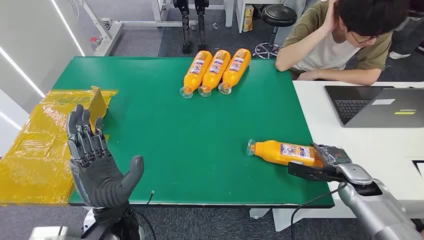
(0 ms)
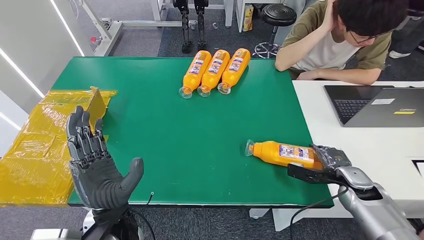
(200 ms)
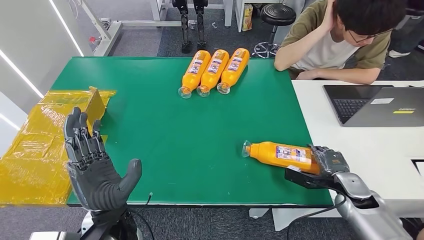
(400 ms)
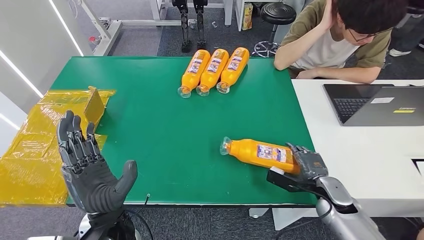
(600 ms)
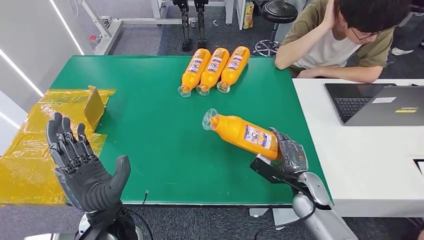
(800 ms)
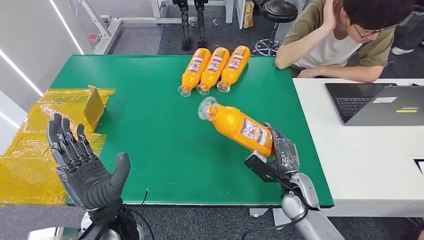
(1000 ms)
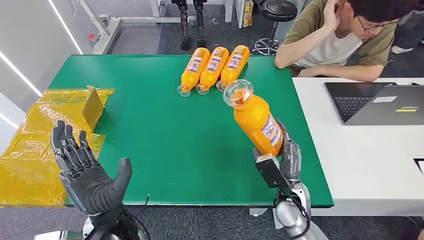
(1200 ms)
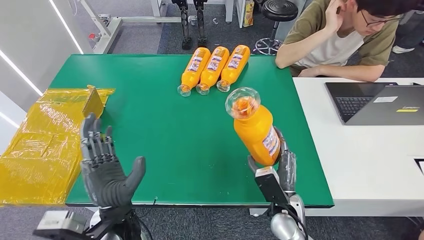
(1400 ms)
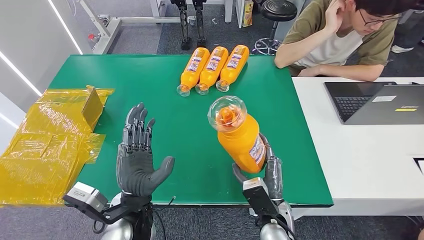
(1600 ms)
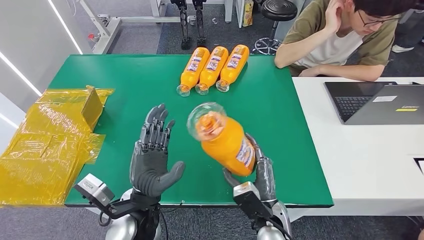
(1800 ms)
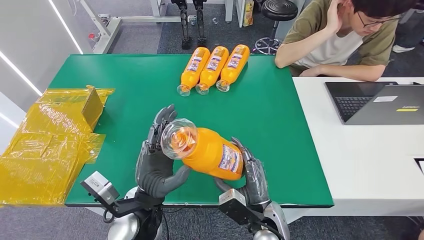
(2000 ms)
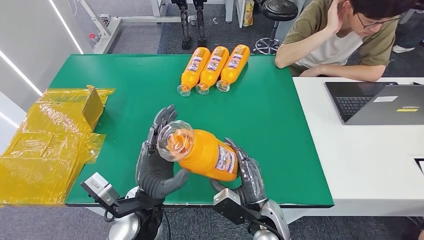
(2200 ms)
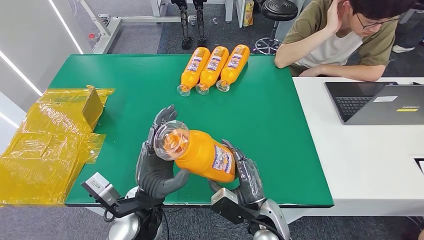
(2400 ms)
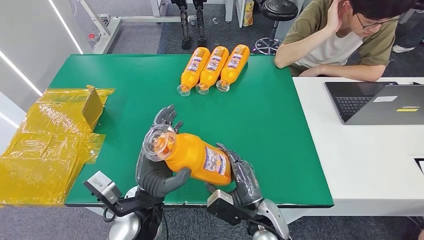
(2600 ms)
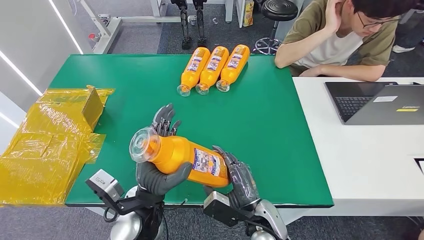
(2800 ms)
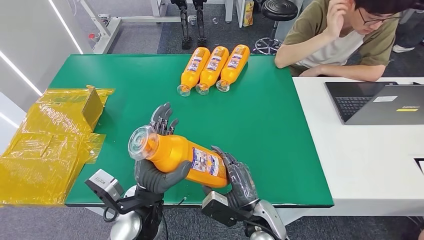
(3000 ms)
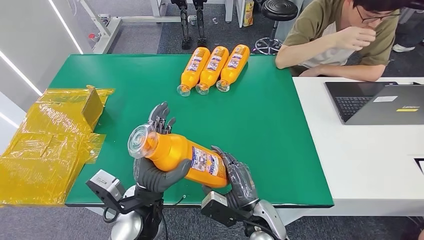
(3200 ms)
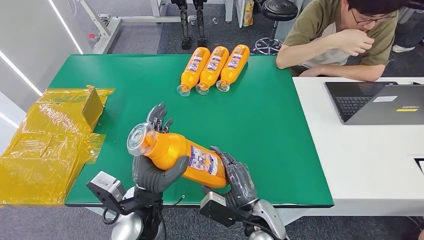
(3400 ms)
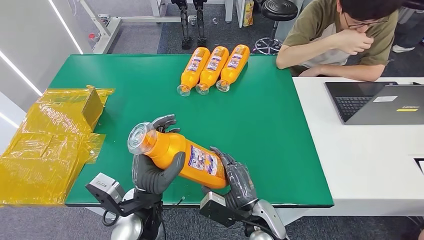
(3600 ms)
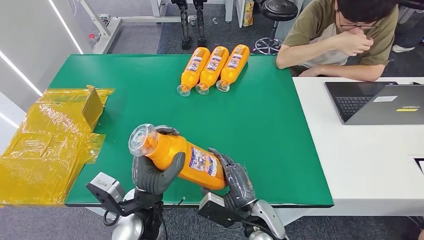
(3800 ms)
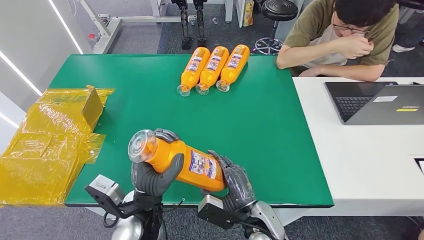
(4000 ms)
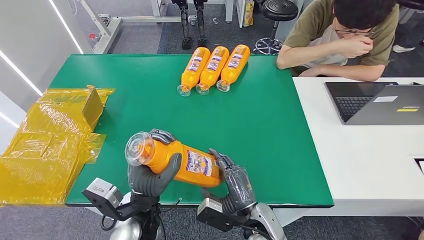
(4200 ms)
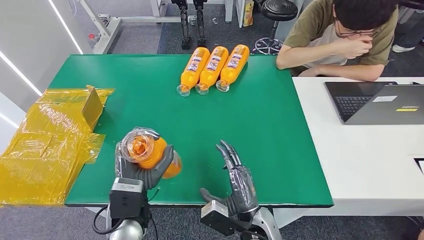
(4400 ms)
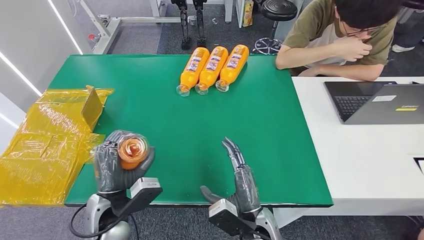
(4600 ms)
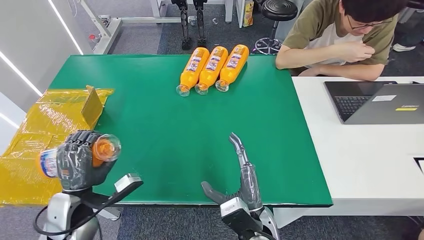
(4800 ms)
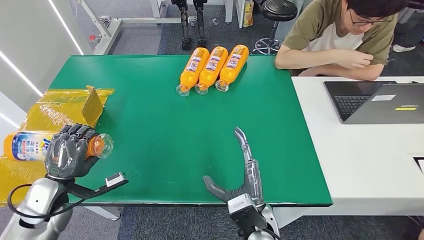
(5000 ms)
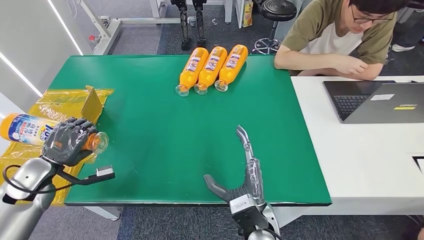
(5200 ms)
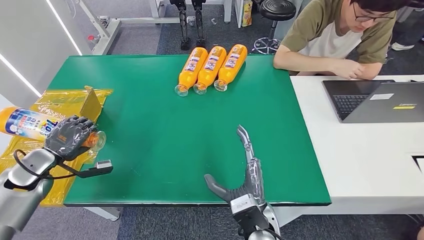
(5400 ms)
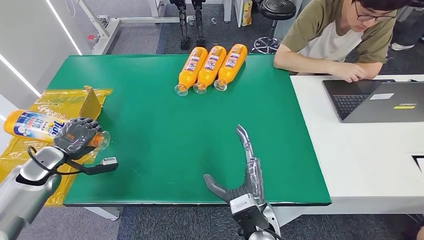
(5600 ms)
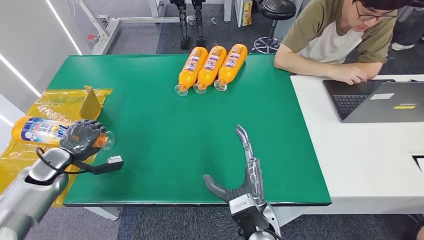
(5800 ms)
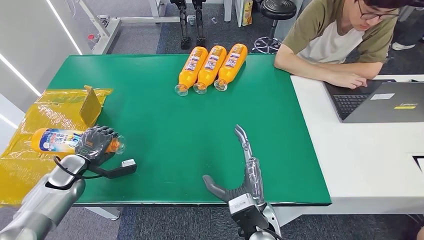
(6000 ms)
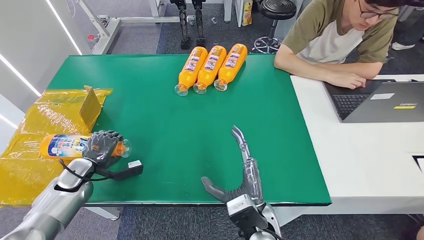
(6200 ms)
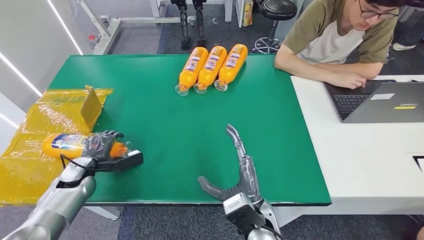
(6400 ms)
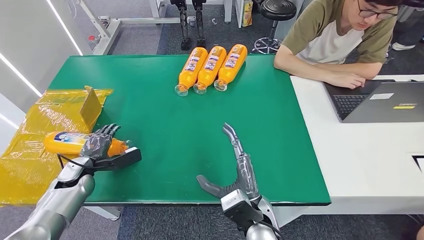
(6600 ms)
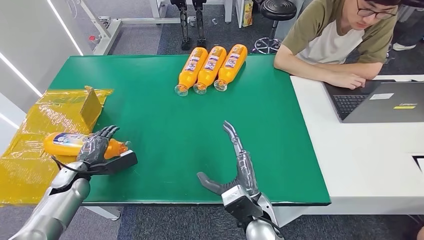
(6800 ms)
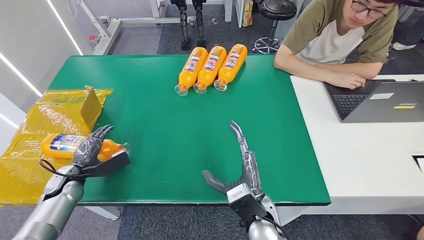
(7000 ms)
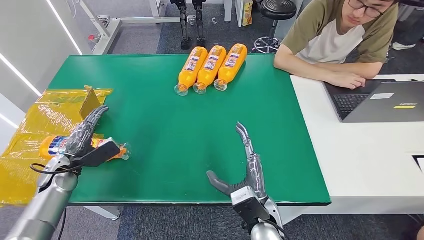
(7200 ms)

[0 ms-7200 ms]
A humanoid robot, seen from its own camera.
Step, 0 ms to 2200 ms: Pick up the bottle from the table.
Step, 2400 ms to 7200 ms: Turn the bottle to the front side.
1400 ms to 2800 ms: The right hand is displaced to the left by about 5 cm.
5800 ms to 7200 ms: The left hand moves to the right, approximately 5 cm.
